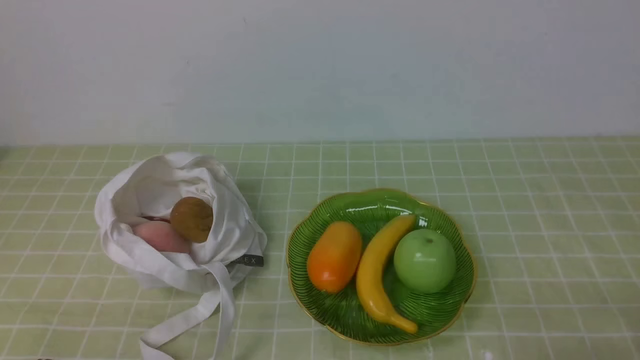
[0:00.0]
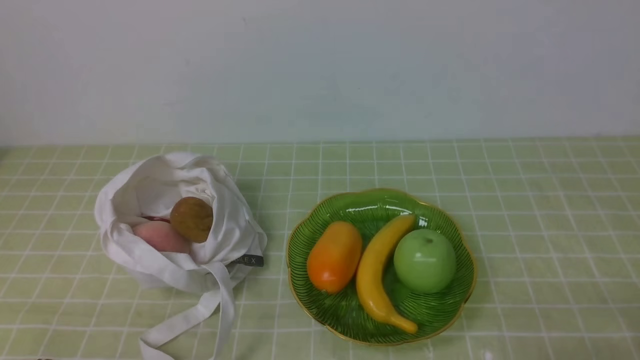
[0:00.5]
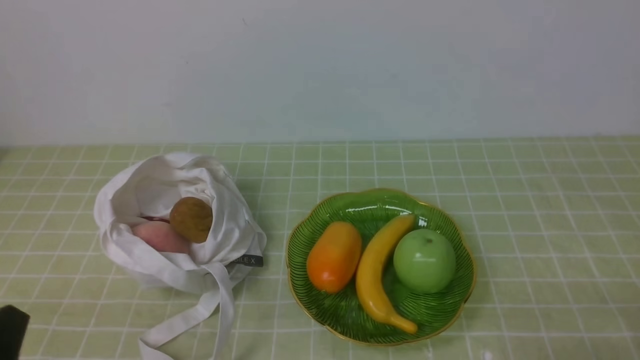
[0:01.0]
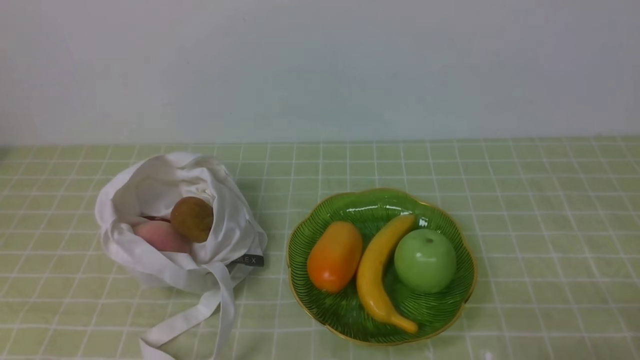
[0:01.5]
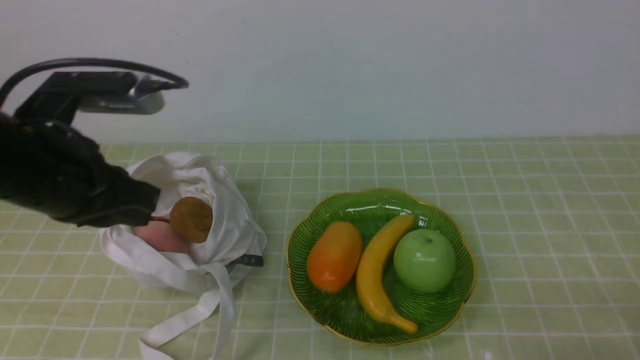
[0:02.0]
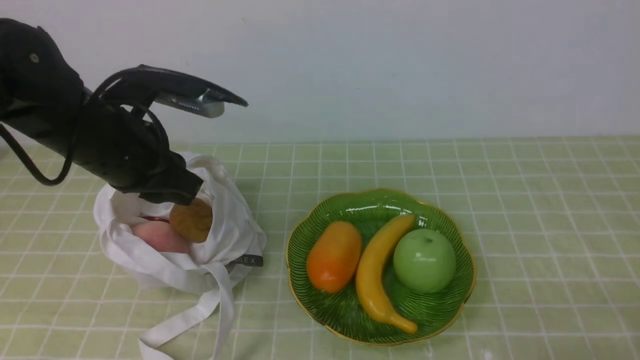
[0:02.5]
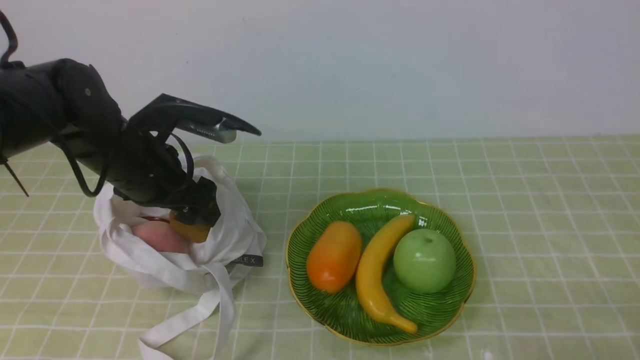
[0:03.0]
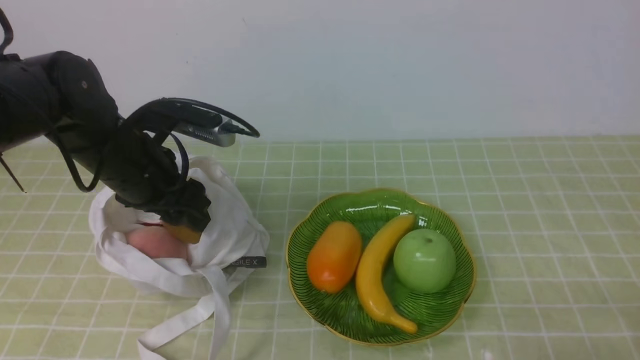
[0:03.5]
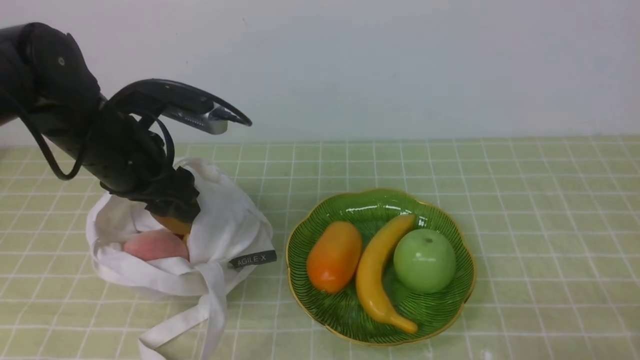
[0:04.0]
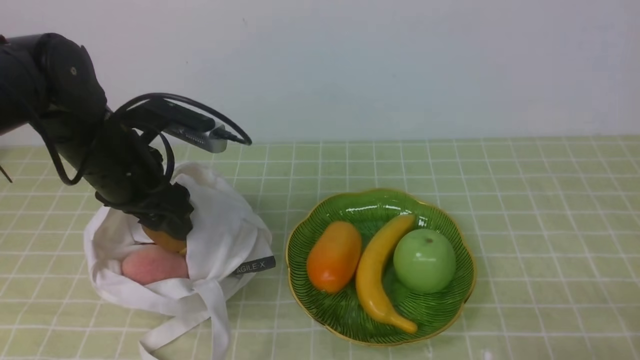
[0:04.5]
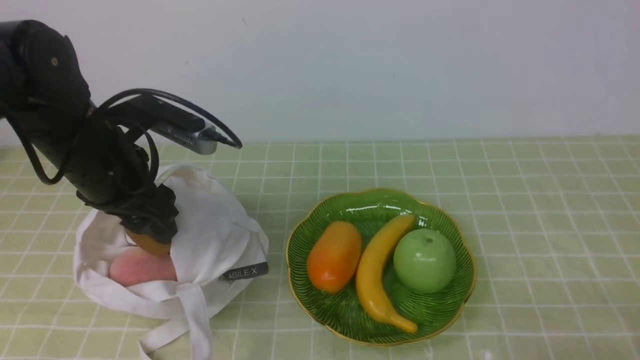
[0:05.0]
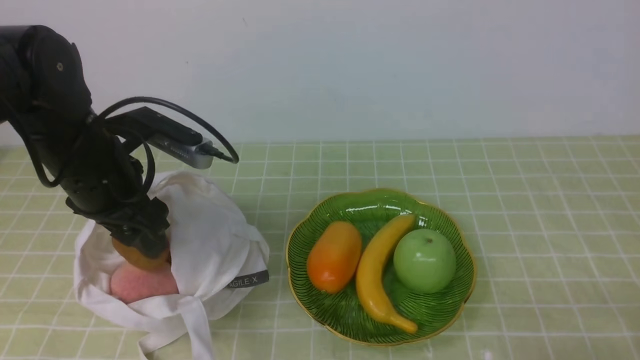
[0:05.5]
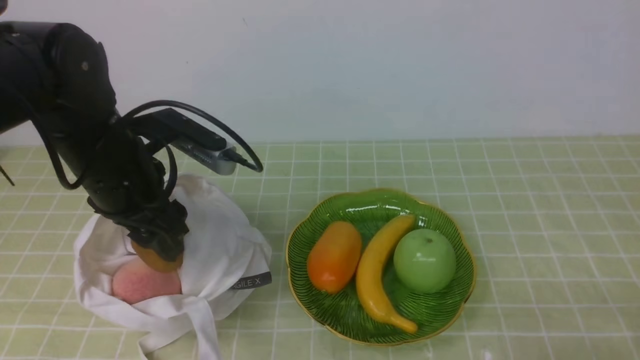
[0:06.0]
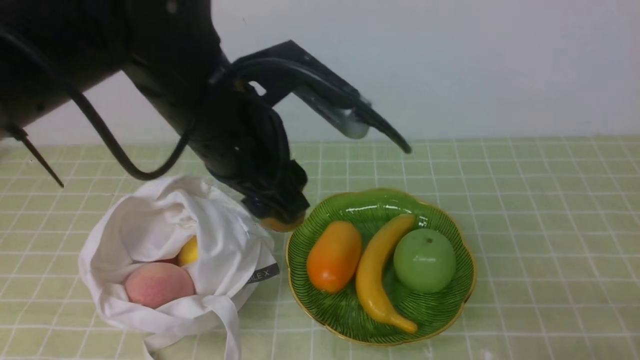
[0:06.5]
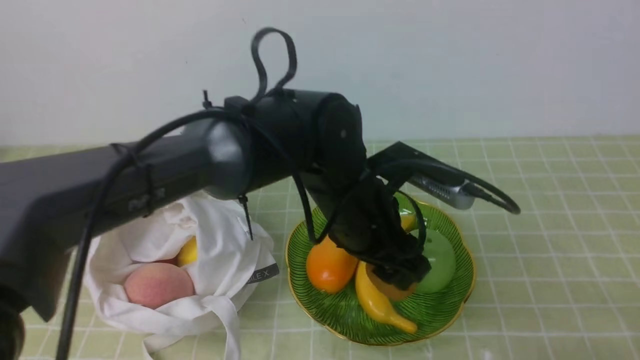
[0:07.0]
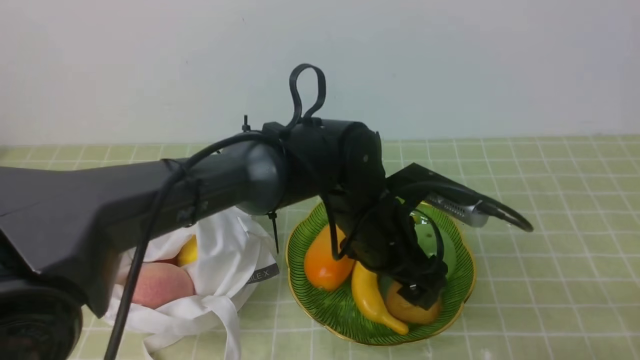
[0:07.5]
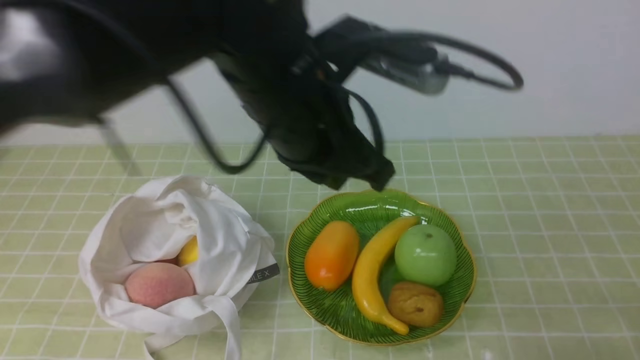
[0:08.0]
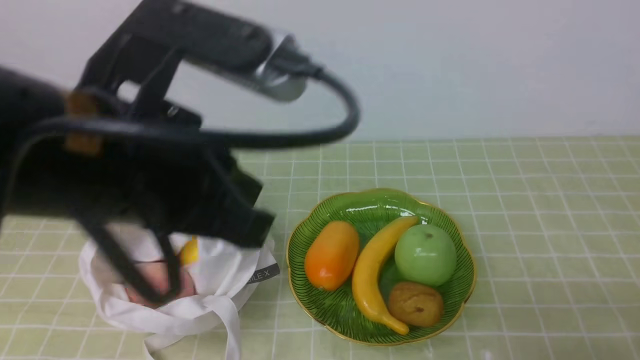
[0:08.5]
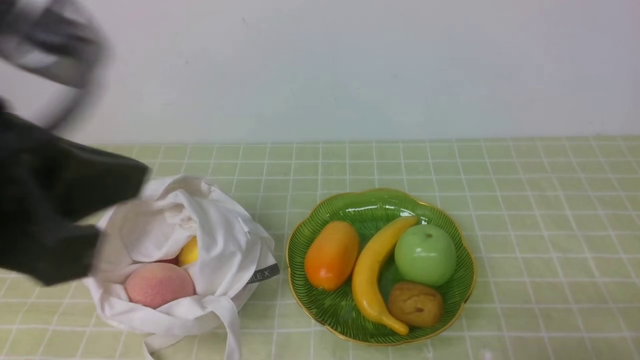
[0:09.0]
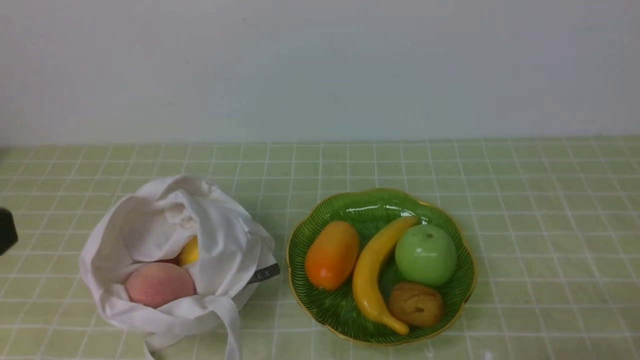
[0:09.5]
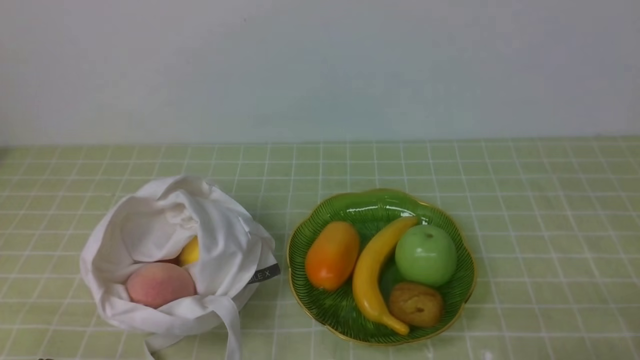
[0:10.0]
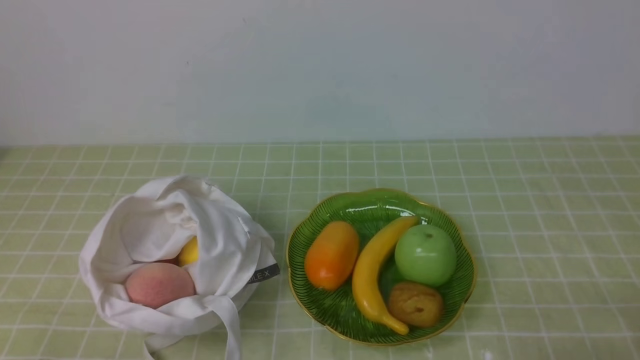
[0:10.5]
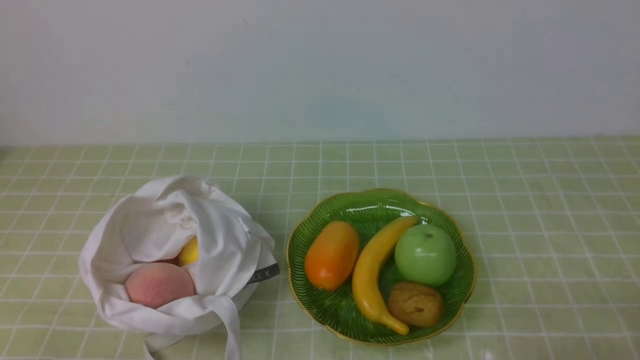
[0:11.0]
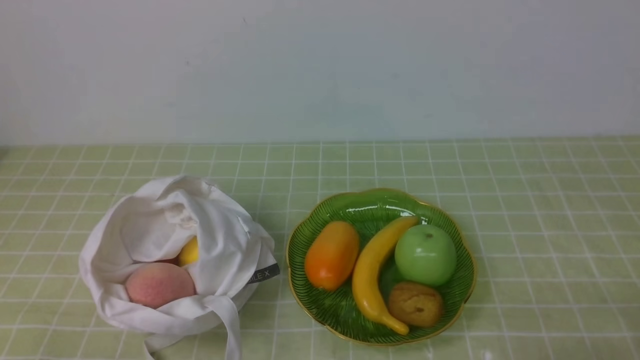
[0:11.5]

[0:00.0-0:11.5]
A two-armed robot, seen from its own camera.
Step, 0:00.0 to 0:03.5: use the left arm to grab a kiwi from the bag.
Step, 0:04.0 to 0:07.5: use the left arm to put the kiwi into the empty plate on the right.
0:02.0 to 0:04.0: The left gripper moves forward and downward, some 15 cm, and opens up.
0:04.0 to 0:06.0: The grippers make only small movements.
0:06.0 to 0:07.5: The left gripper is displaced to the right by about 25 cm.
0:07.5 to 0:09.5: The left gripper shifts about 40 cm to the left, backward and upward, and closes.
